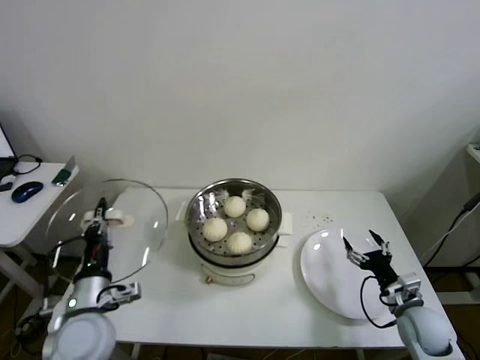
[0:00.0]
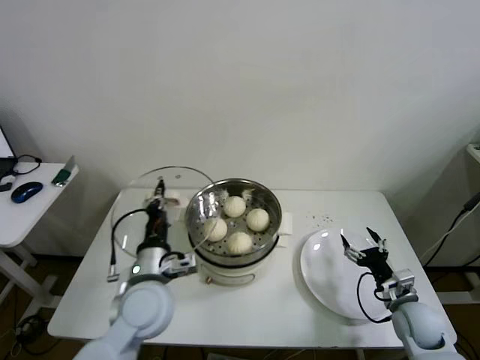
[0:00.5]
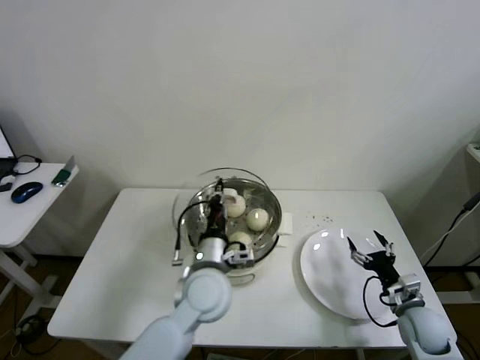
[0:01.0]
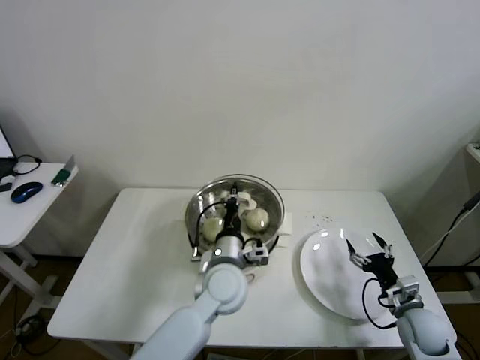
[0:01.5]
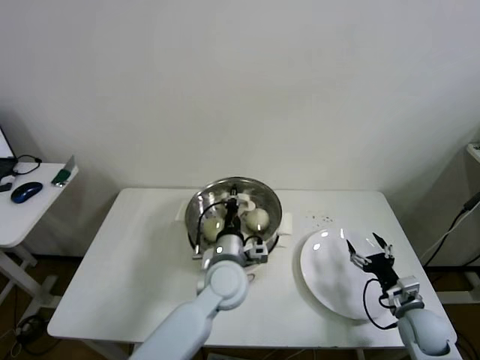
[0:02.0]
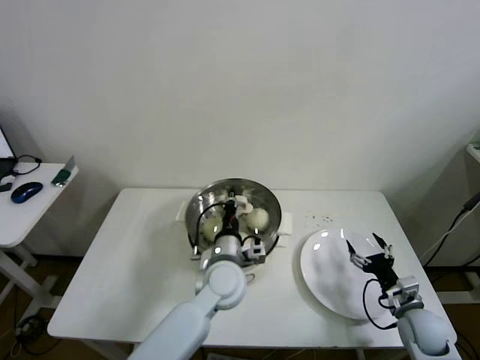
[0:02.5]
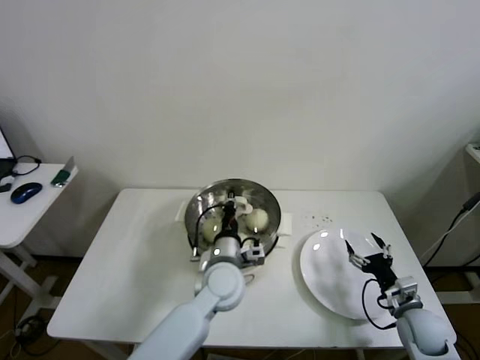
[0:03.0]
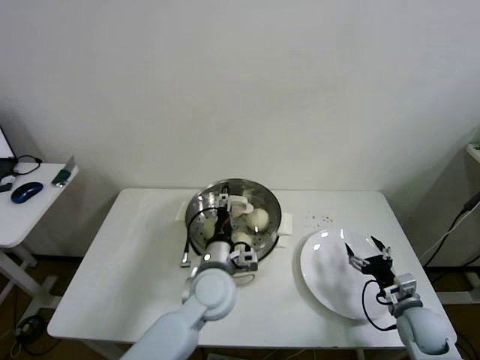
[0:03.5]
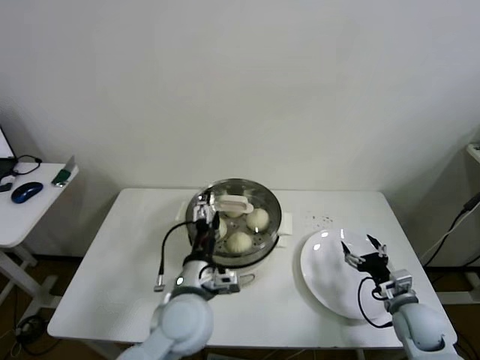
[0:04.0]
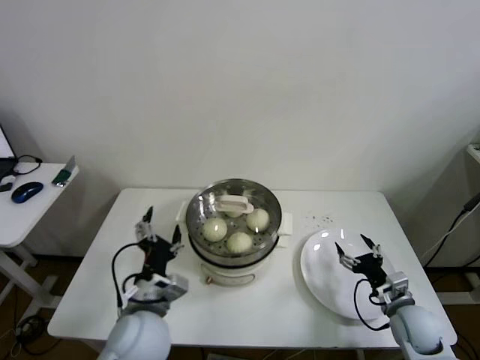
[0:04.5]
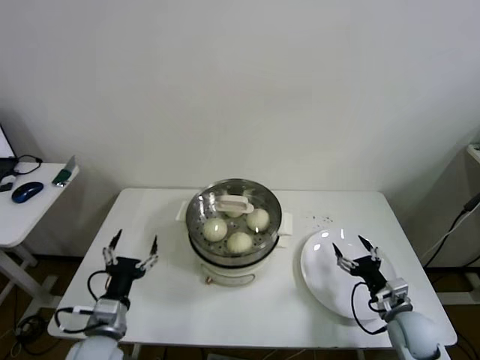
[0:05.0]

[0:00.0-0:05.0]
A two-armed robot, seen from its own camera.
Step, 0.0 to 3.5 s: Place the pot lid on the steamer with left gripper.
0.0 to 2.5 s: The left gripper heads to the right and forward, covering roughly 25 cm.
2.5 to 5.0 s: The left gripper moves to the left and backward, some 25 cm, and opens.

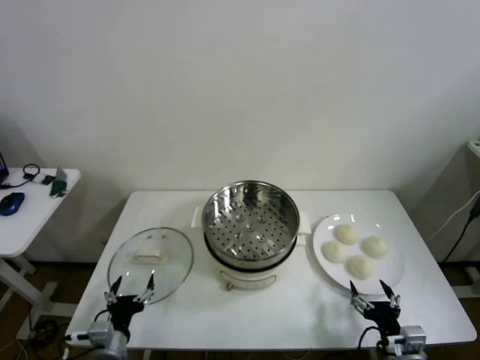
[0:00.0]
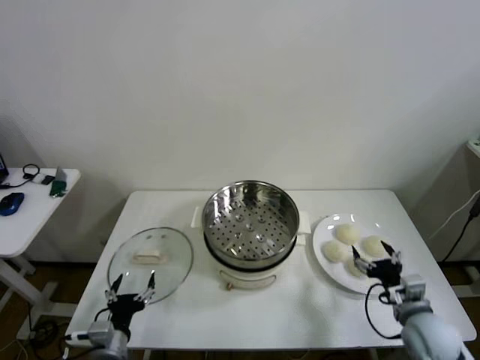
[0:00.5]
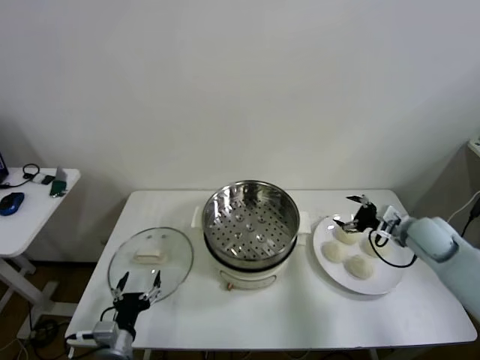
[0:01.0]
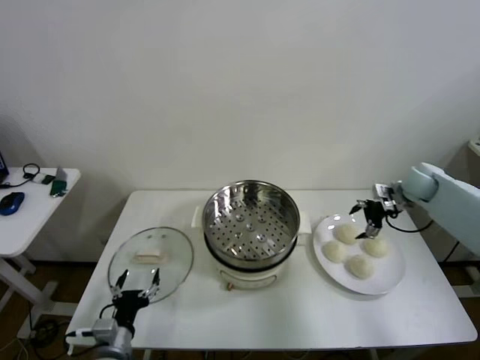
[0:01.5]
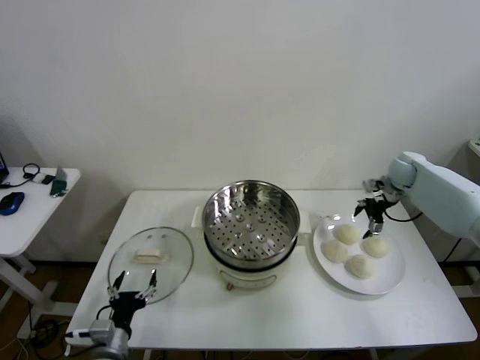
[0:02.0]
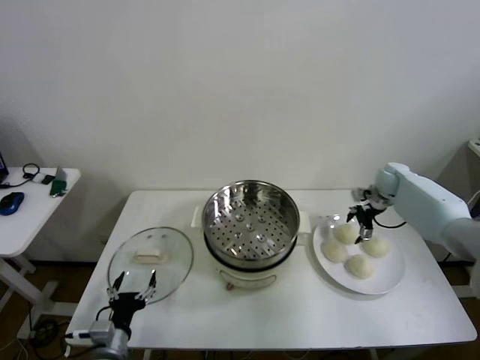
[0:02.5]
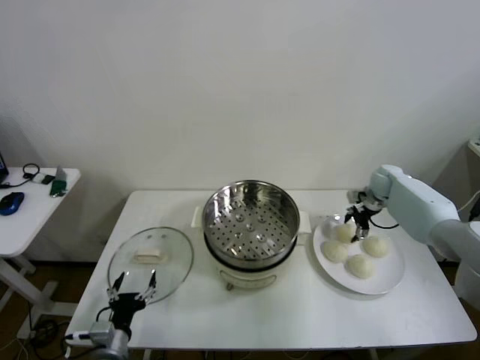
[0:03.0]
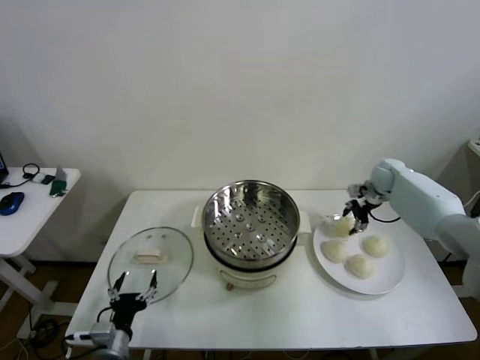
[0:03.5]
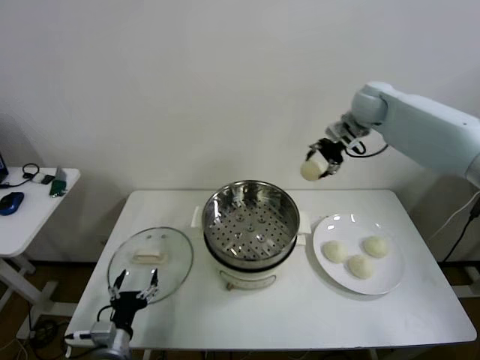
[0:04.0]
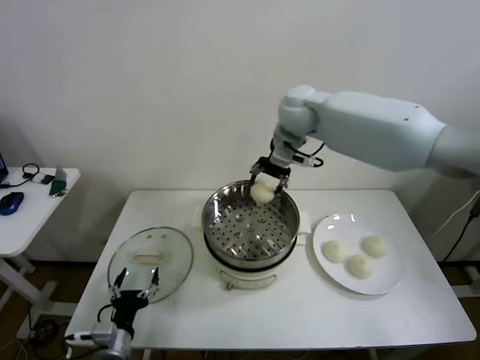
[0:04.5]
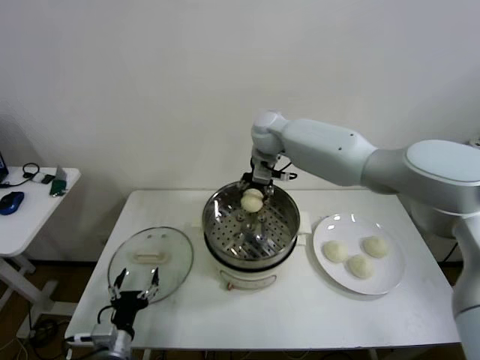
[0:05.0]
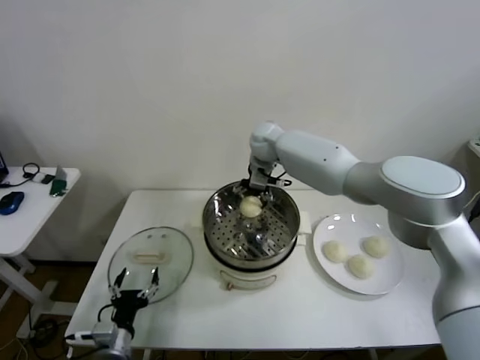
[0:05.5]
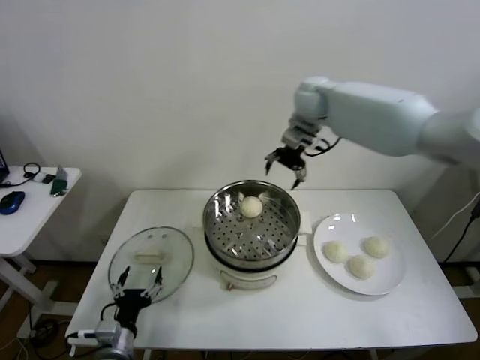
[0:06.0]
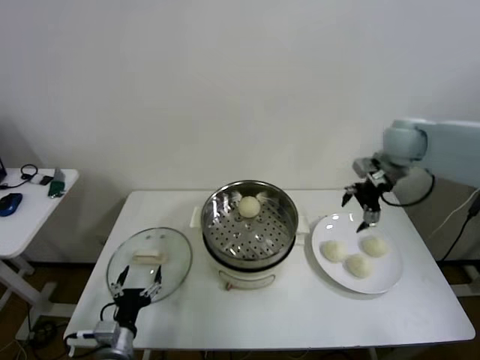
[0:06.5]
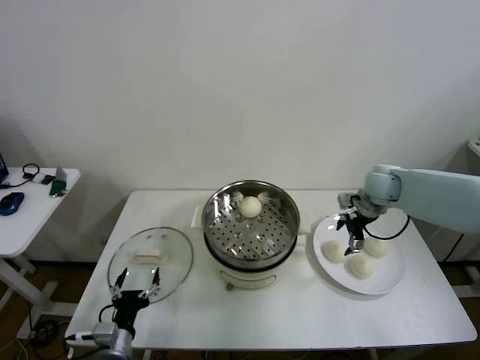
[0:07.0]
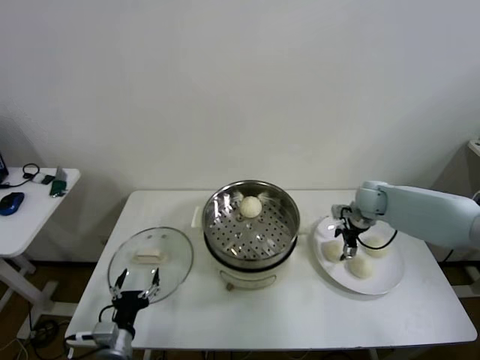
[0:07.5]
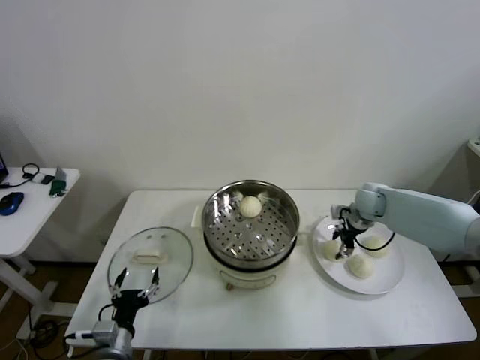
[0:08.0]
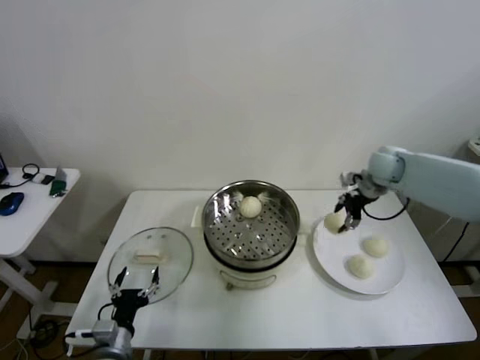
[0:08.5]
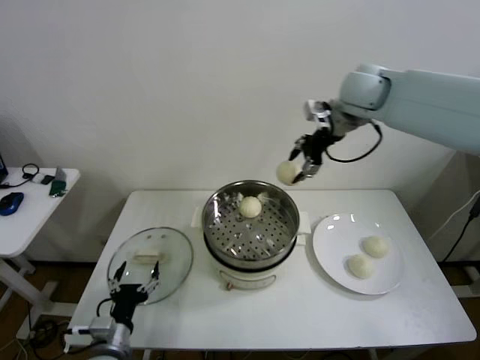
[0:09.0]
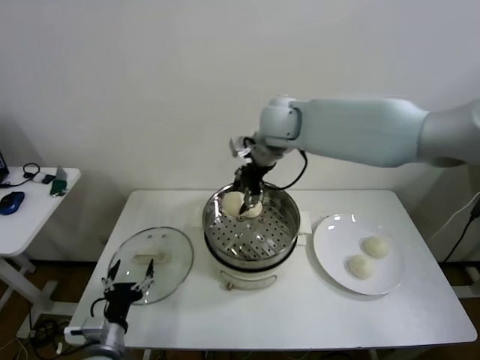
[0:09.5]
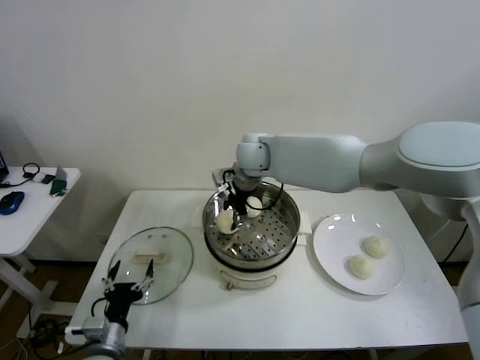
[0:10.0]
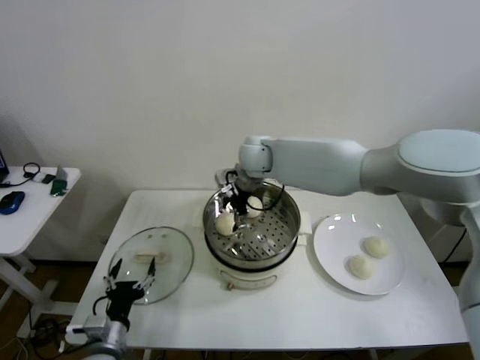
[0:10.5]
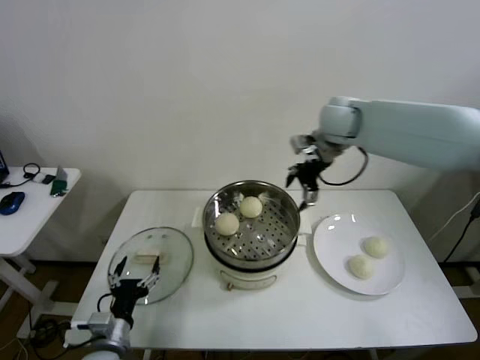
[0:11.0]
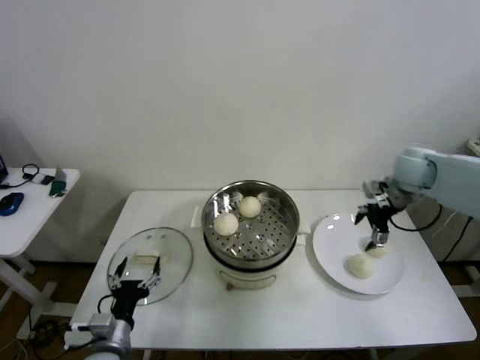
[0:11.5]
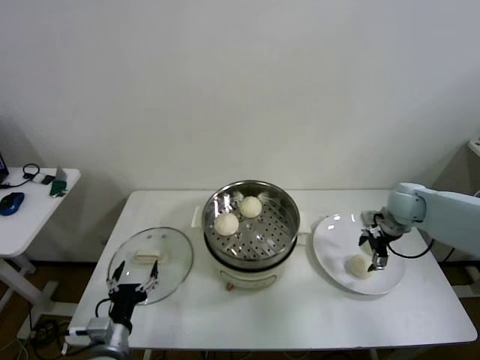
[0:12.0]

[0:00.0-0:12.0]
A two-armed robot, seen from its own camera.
Step, 0.0 to 3.0 s: Grasp the baozi in the plate with right gripper.
Step, 3.5 to 5.5 s: Place the baozi on the steamer with right gripper.
Step, 6.0 to 8.0 s: Grasp the baozi in the plate with right gripper.
Step, 8.5 to 10.0 s: Place the baozi on the steamer with right gripper.
2.0 to 4.0 s: The right gripper heads upward and to the left, covering some 30 cm, and closes its fingers.
4.0 to 6.0 s: The right gripper reaches approximately 20 cm to the left, then returns, and opens up.
6.0 to 8.0 s: The right gripper travels downward and to the right by about 30 cm, and closes.
8.0 to 10.0 s: The right gripper heads to the left and upward, covering some 35 cm.
10.0 to 12.0 s: The right gripper shifts approximately 40 cm to the right, and opens.

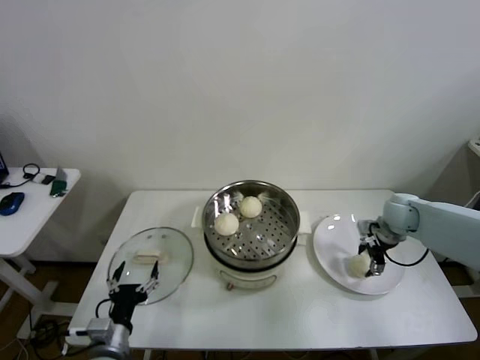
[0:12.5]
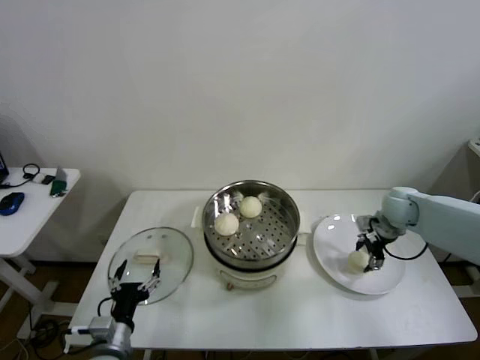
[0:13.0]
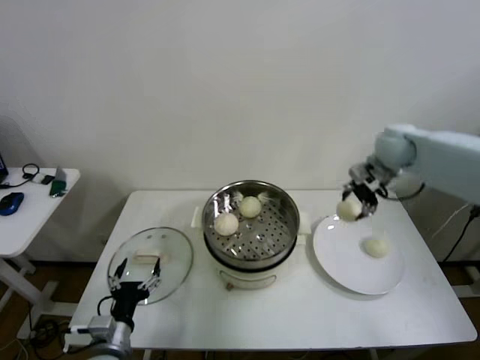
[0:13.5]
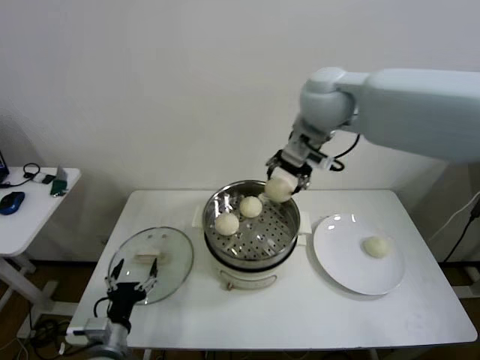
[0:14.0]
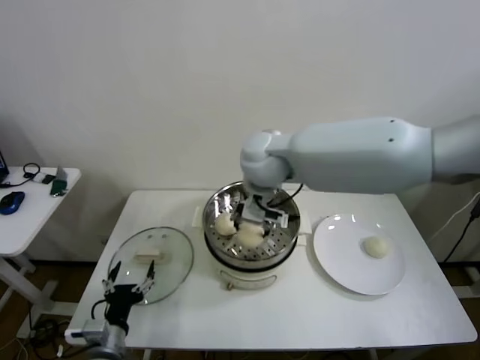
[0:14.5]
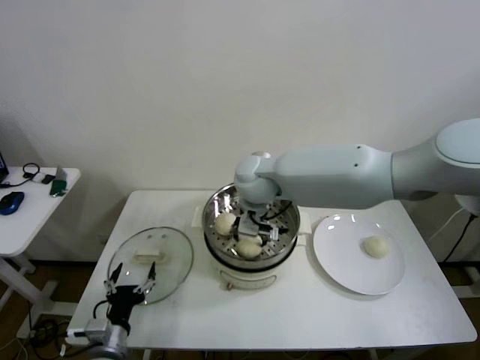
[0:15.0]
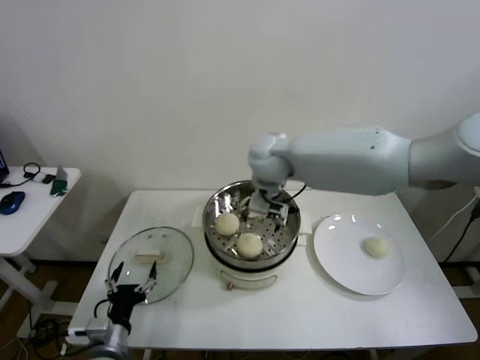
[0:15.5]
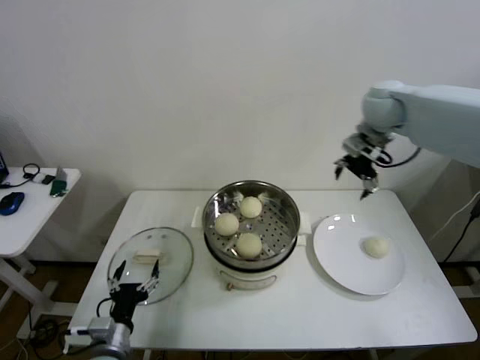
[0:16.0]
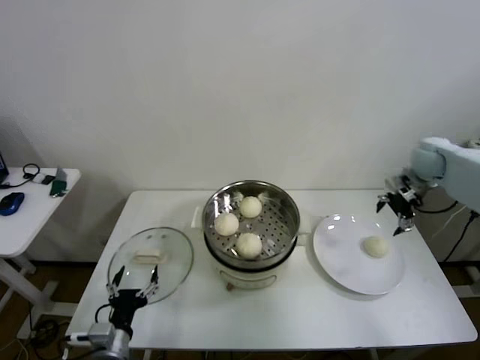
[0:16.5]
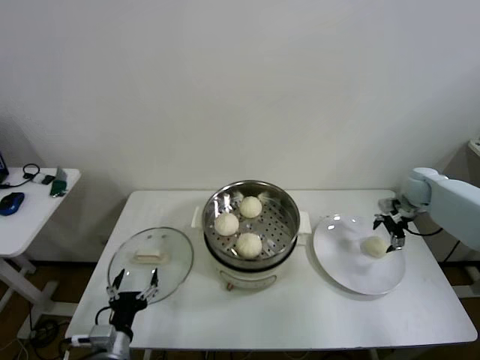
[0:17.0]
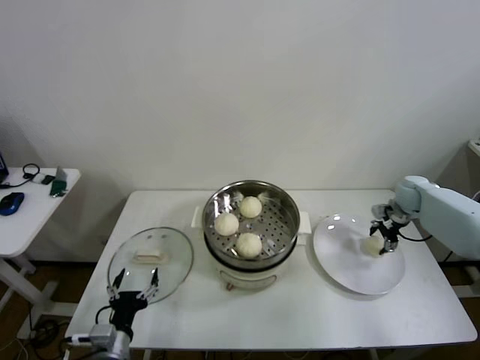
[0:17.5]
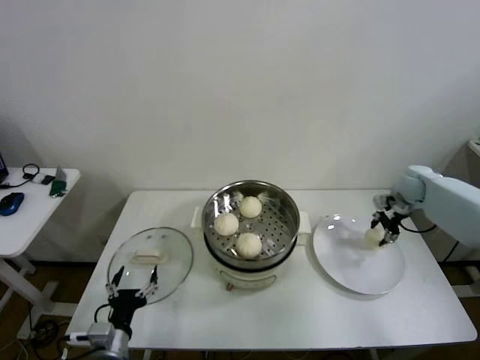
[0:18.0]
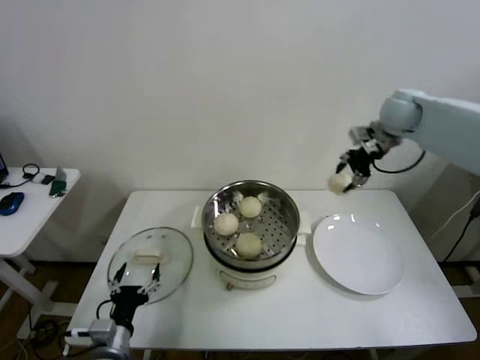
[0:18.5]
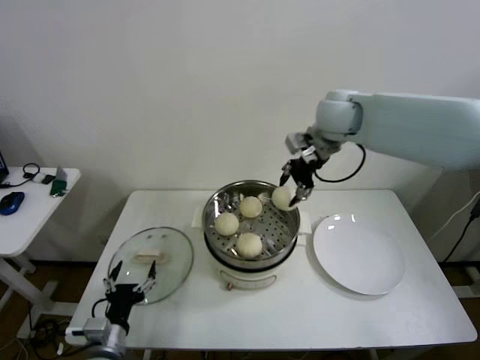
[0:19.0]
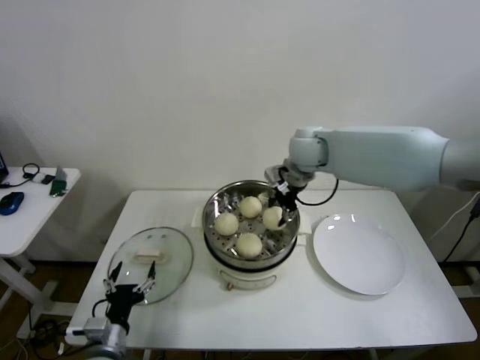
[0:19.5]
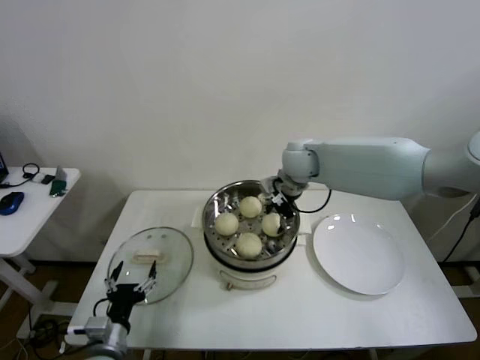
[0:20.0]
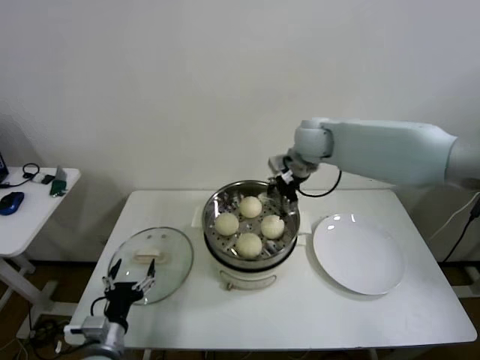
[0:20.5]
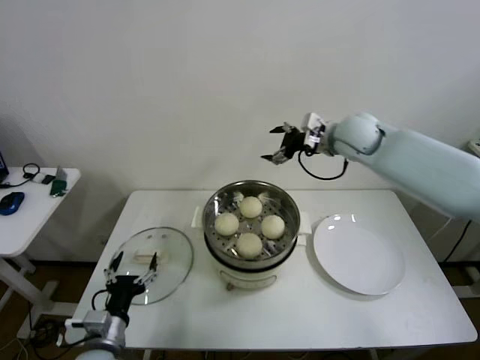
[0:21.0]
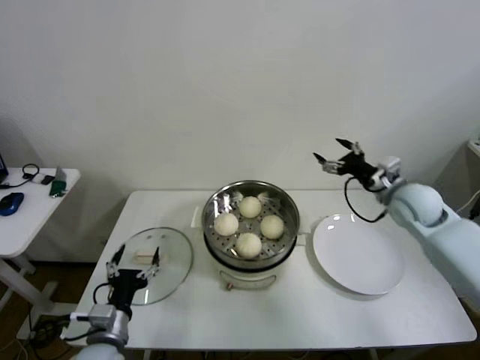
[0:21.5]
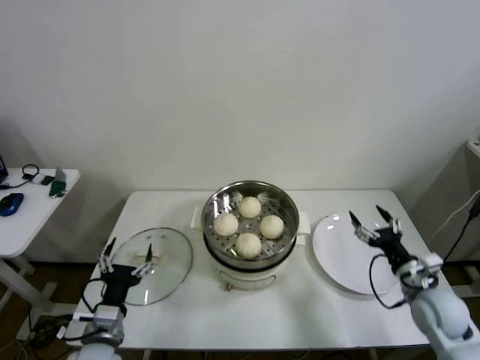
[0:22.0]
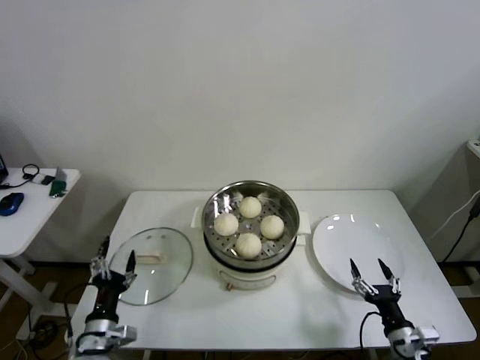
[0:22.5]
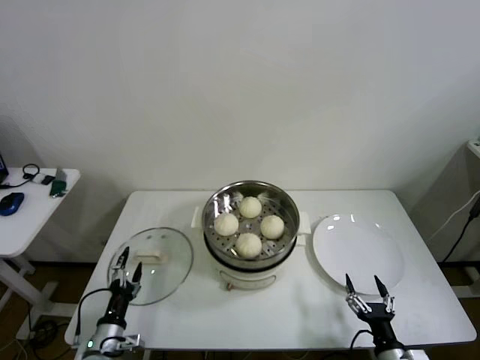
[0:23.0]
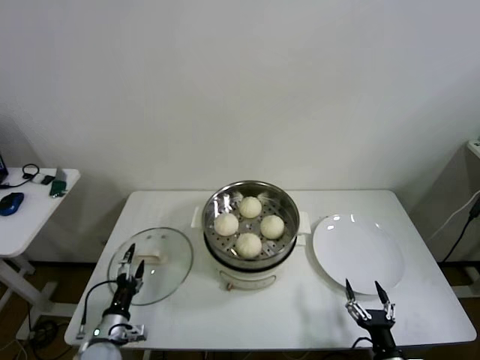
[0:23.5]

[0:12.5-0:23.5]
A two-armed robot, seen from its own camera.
Step, 13.0 to 15.0 s: Place the baozi on the steamer with right gripper.
Step, 15.5 to 17.5 s: Grasp the baozi in the plate with right gripper.
Step, 18.0 to 20.0 s: Place the baozi on the steamer with right gripper.
12.5 to 14.5 s: The right gripper moves to the left and upward, approximately 40 cm.
14.5 to 16.0 s: The right gripper shifts about 30 cm to the right, and opens its fingers.
16.0 to 18.0 s: The right gripper is displaced downward and to the right by approximately 25 cm, and closes up.
18.0 to 20.0 s: The right gripper is displaced to the left by some 30 cm.
20.0 to 21.5 s: The right gripper shifts some 25 cm to the right, and opens.
21.5 to 23.5 s: The left gripper shifts roughly 15 cm downward and to the left, while the right gripper travels backward and downward by some 40 cm.
